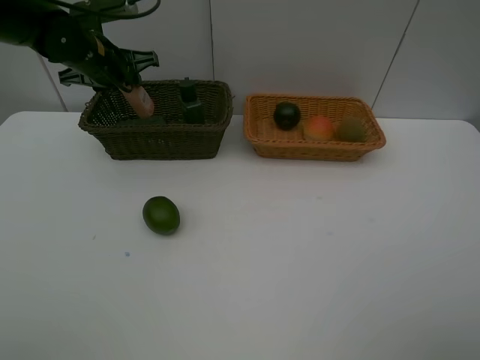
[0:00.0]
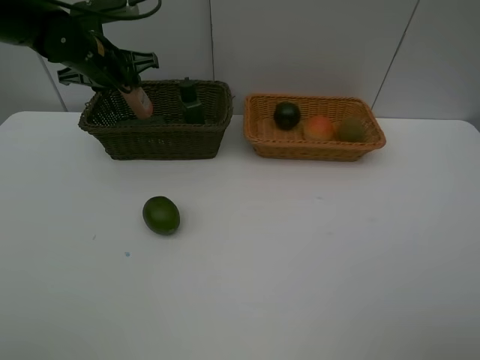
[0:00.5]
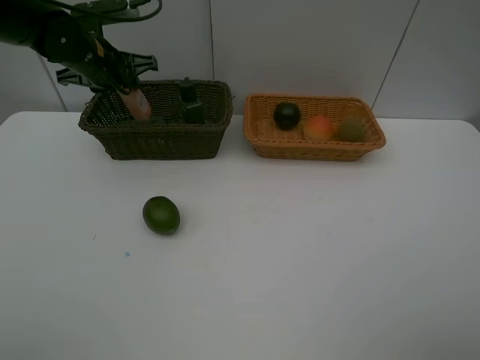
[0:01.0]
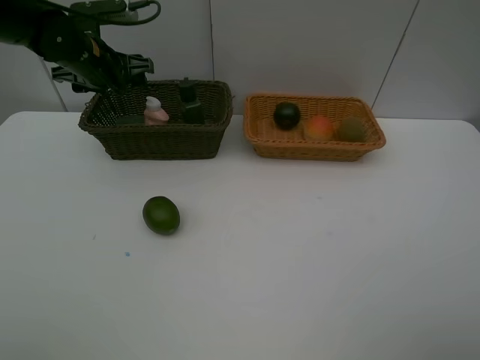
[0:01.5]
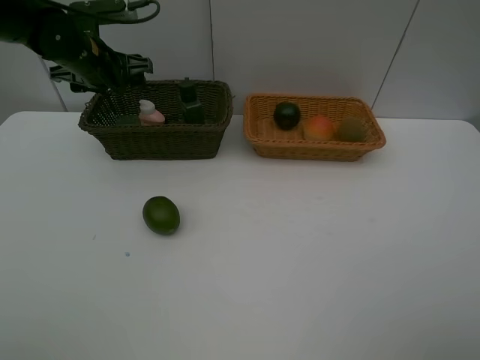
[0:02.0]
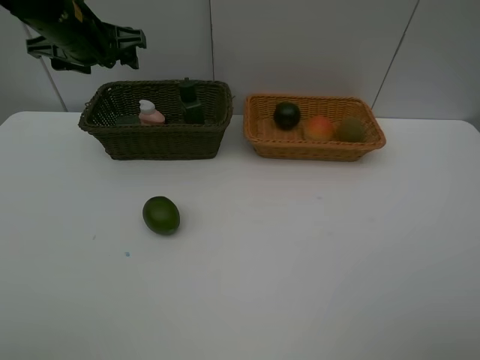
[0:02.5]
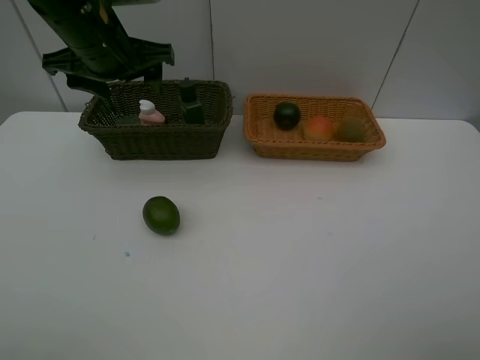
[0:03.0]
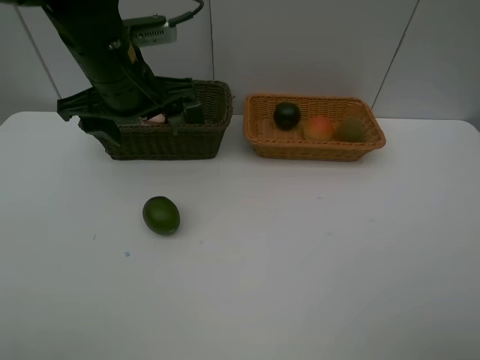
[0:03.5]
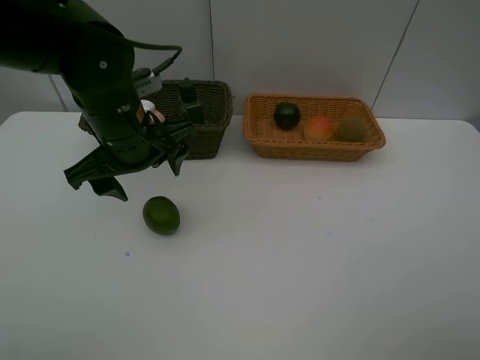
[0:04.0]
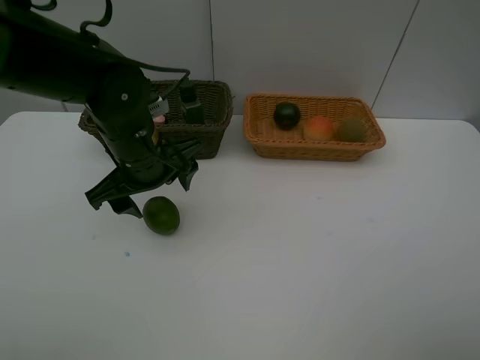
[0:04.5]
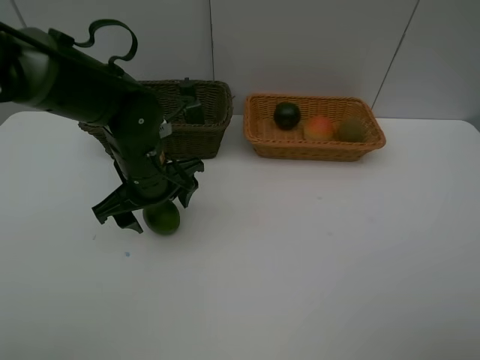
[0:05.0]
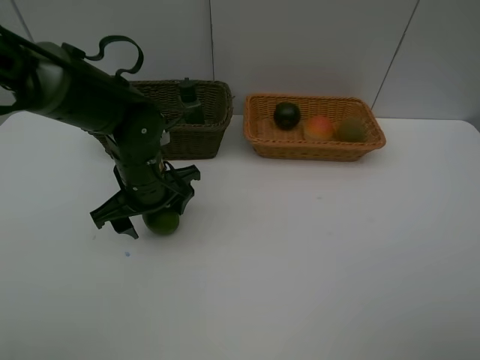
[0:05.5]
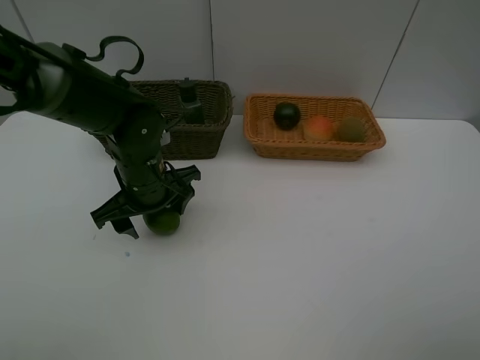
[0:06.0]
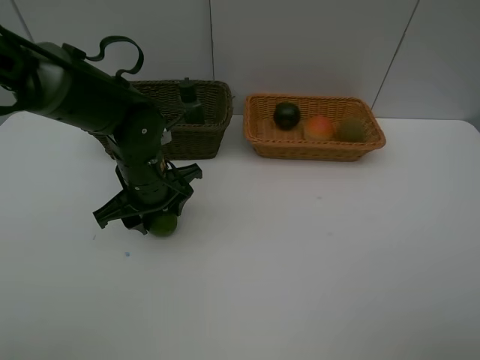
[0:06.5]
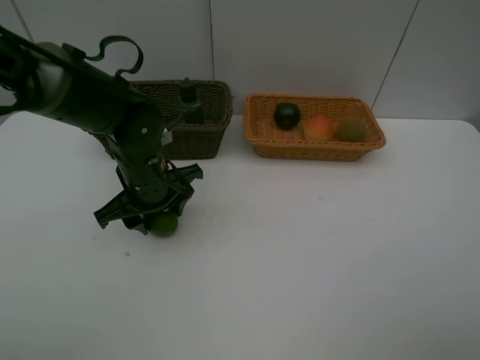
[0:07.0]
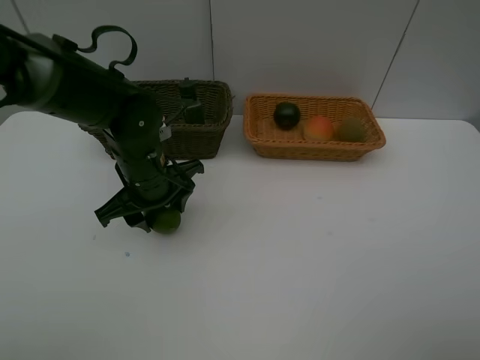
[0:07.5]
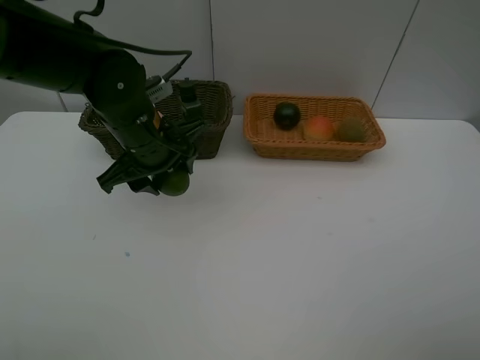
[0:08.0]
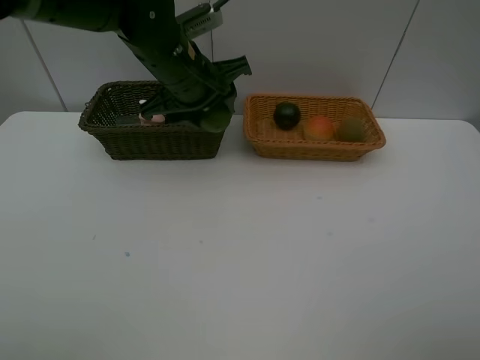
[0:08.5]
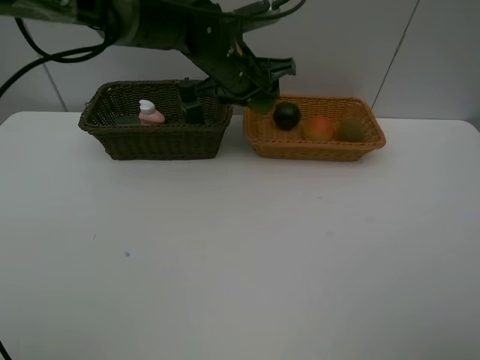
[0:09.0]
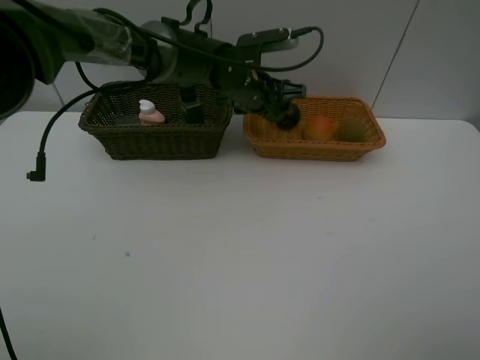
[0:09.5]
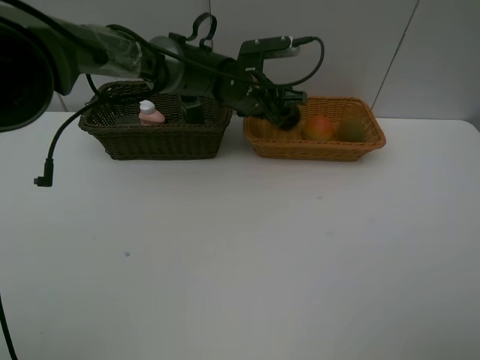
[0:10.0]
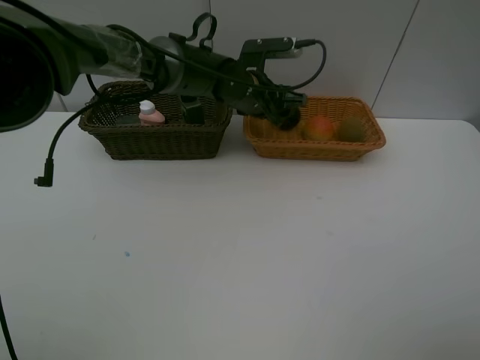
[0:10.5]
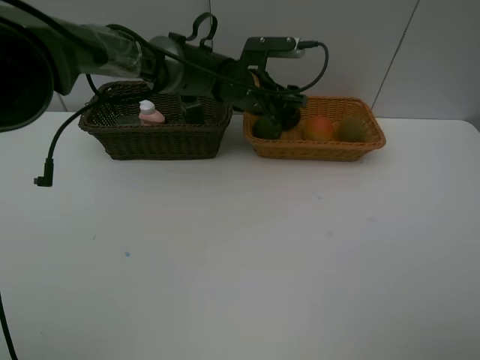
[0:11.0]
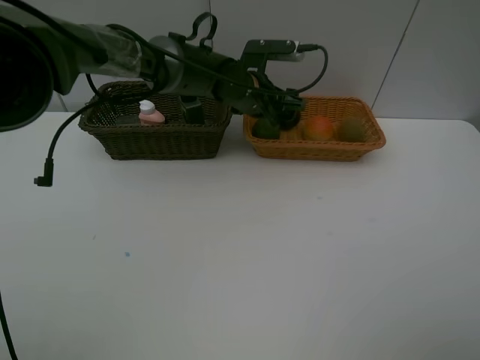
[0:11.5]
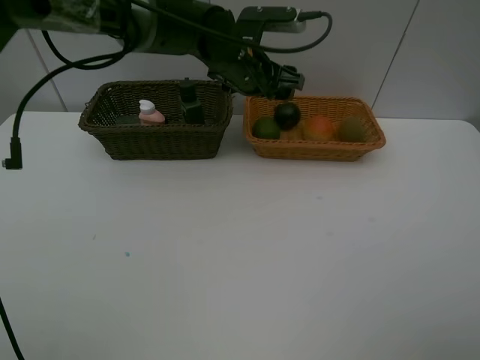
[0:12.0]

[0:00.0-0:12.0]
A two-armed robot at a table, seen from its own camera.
Task of the whole recording: Place multiple objects separately in different baskets.
Step, 0:02.0 to 0:07.5: Pick up the lime with left gripper.
Step, 0:08.0 to 0:11.5: Place the lime in the light basket with left gripper.
0:00.0 to 0:02.0: The left gripper opens its fingers.
0:02.0 to 0:04.0: The left gripper heads backward and to the right, covering approximately 20 cm.
0:04.0 to 0:06.0: The left gripper heads downward, covering approximately 10 cm.
0:06.0 to 0:08.0: The left gripper goes approximately 5 cm upward, and closes its fingers.
0:08.0 to 0:10.0: The left gripper shifts approximately 20 cm forward and to the right.
0:10.0 to 0:12.0: The left gripper goes about 5 cm upward, and opens its fingers.

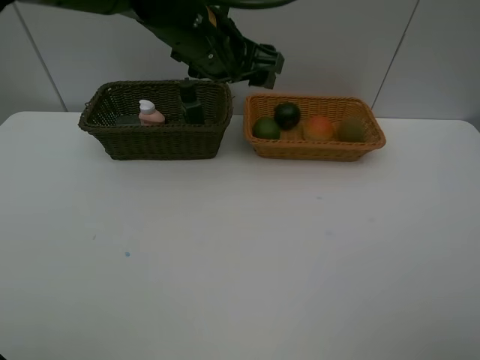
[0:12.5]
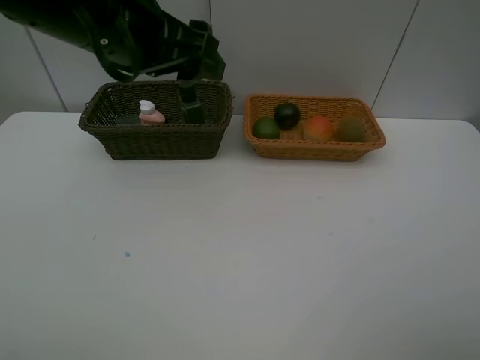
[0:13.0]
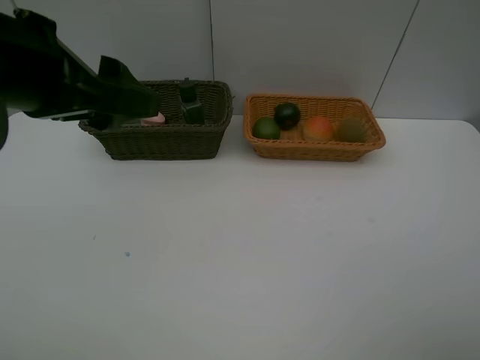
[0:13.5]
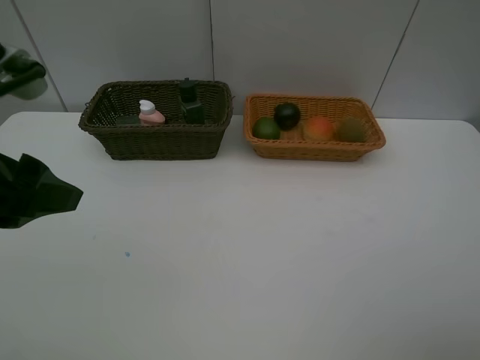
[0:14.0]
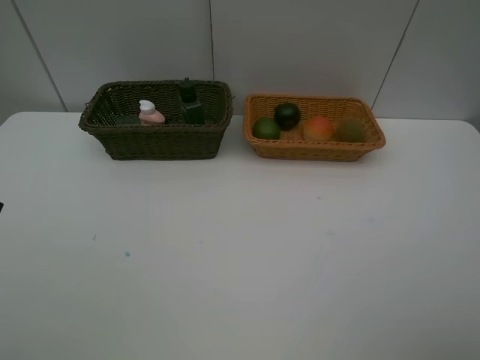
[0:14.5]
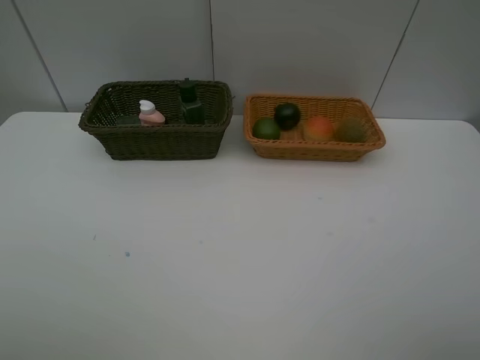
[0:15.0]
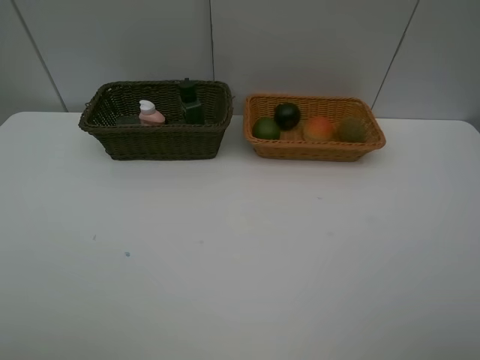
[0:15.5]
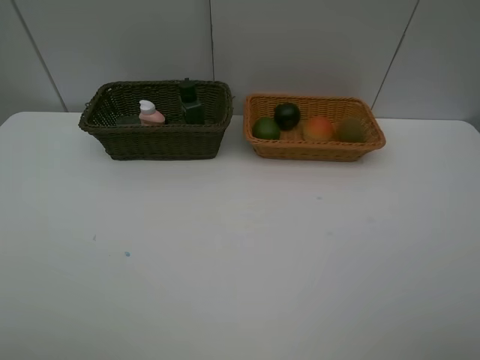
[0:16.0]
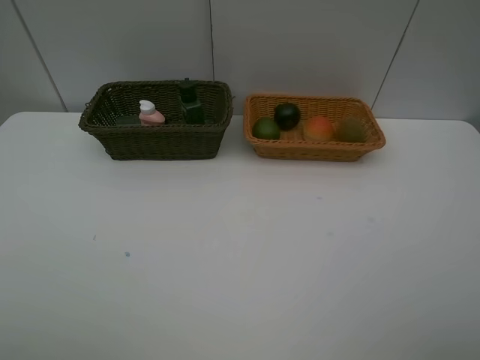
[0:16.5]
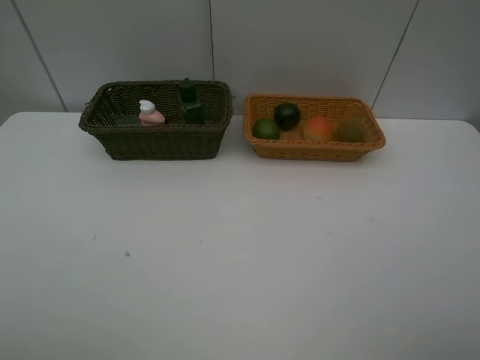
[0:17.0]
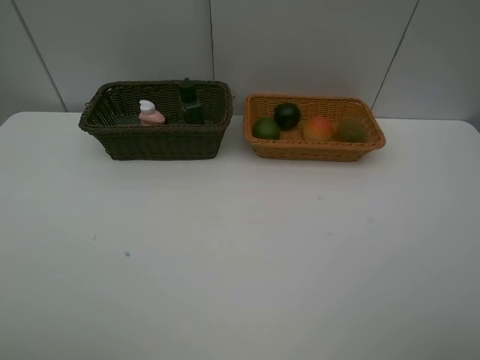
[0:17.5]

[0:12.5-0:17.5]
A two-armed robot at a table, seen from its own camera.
Task of the whole recording: Place multiple objects separately in different baskets.
0:12.5 to 0:15.0: The left gripper shifts roughly 40 cm backward and to the left.
